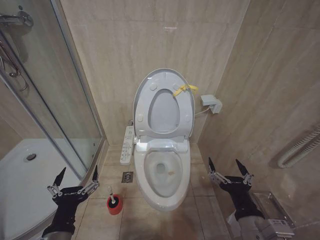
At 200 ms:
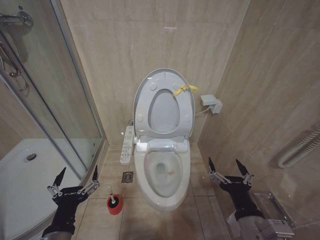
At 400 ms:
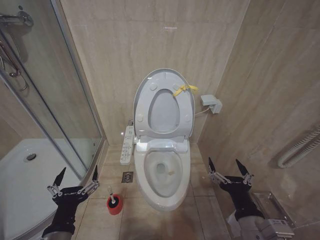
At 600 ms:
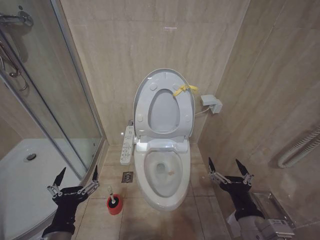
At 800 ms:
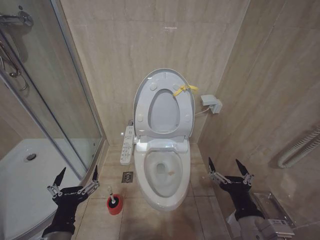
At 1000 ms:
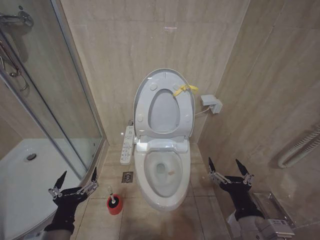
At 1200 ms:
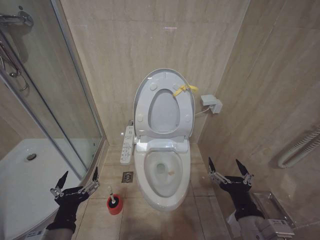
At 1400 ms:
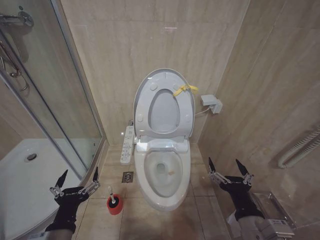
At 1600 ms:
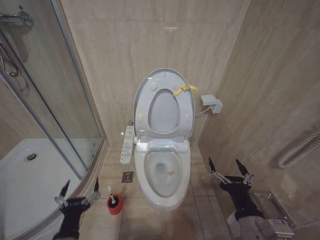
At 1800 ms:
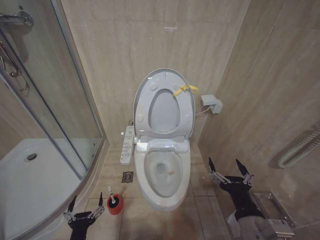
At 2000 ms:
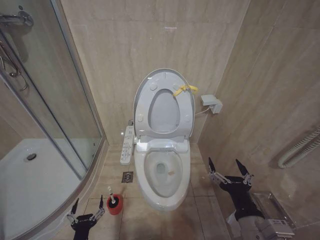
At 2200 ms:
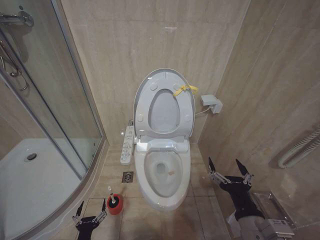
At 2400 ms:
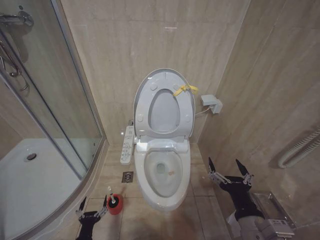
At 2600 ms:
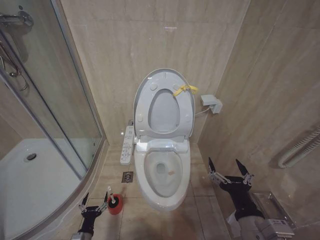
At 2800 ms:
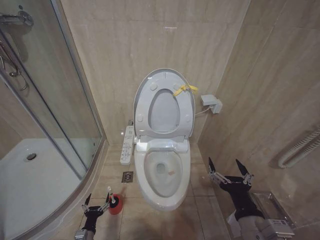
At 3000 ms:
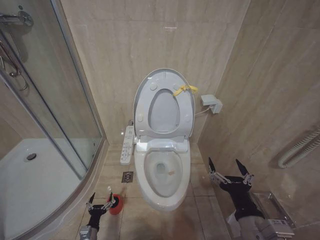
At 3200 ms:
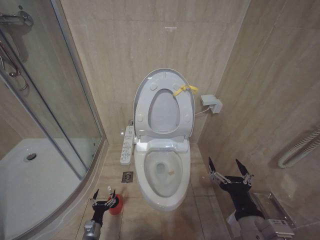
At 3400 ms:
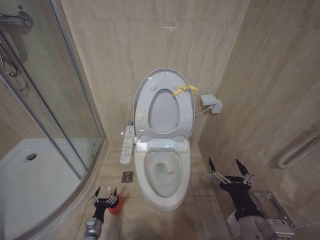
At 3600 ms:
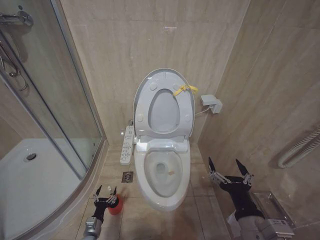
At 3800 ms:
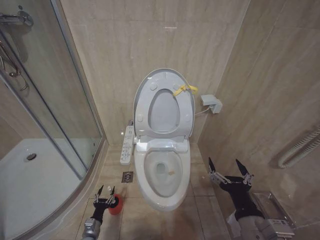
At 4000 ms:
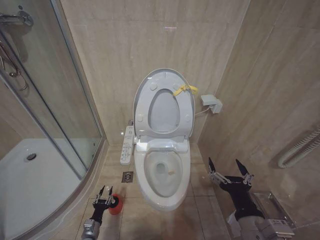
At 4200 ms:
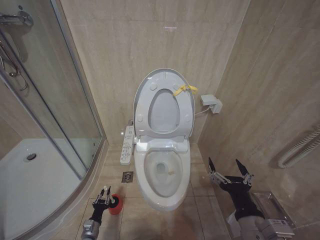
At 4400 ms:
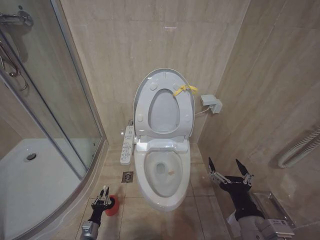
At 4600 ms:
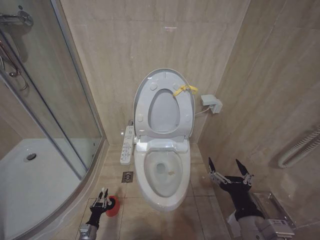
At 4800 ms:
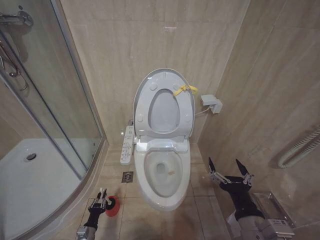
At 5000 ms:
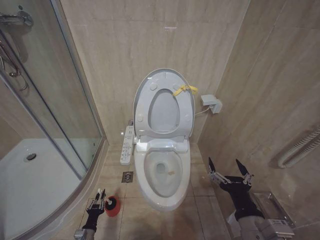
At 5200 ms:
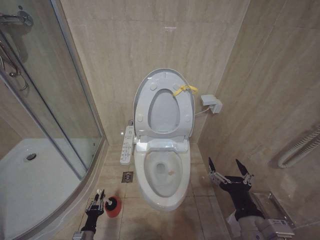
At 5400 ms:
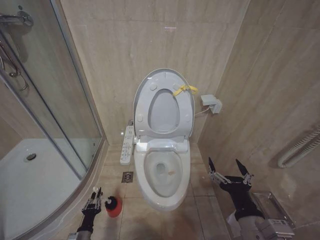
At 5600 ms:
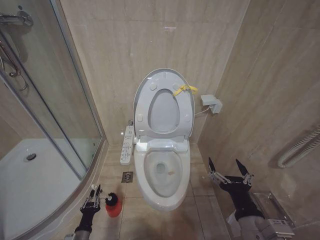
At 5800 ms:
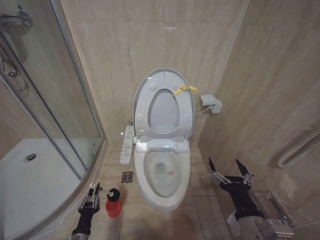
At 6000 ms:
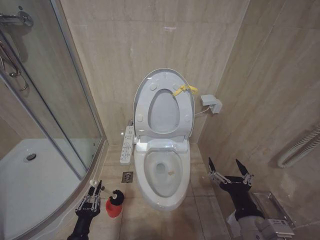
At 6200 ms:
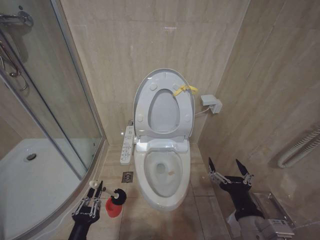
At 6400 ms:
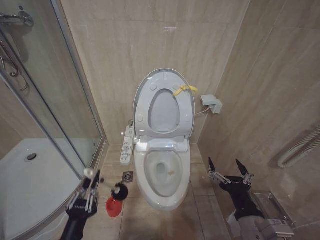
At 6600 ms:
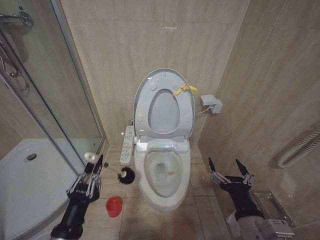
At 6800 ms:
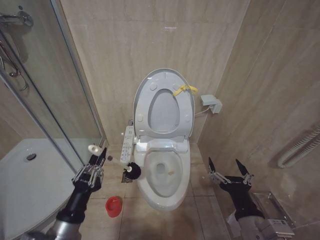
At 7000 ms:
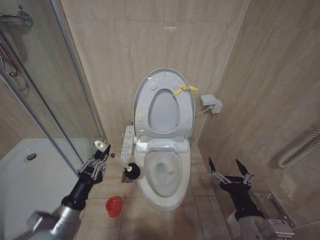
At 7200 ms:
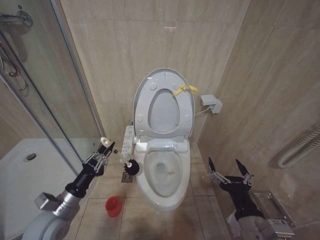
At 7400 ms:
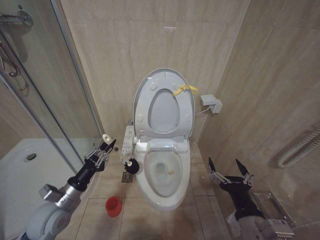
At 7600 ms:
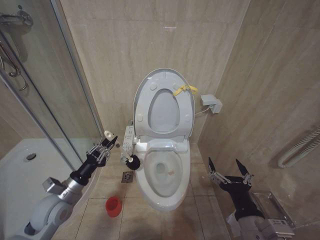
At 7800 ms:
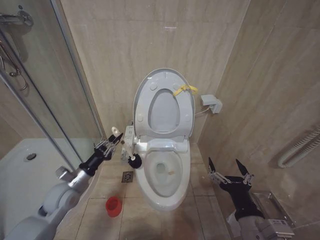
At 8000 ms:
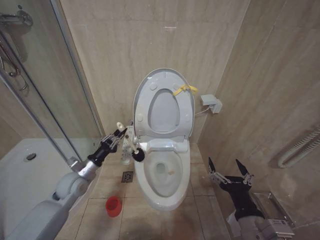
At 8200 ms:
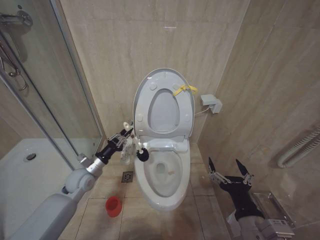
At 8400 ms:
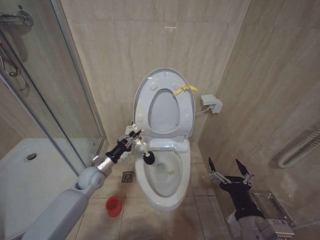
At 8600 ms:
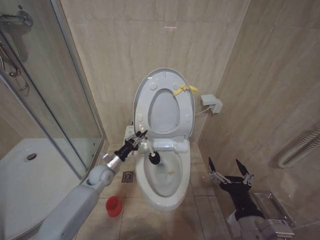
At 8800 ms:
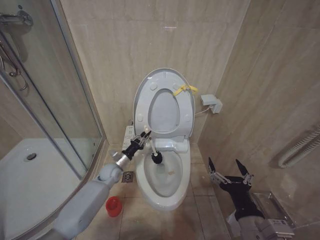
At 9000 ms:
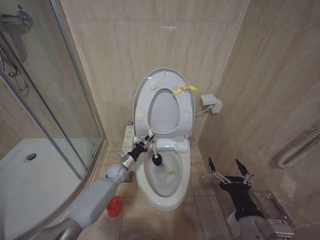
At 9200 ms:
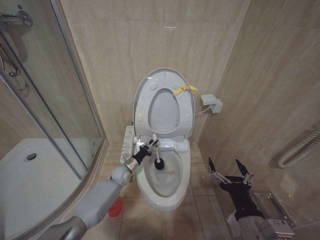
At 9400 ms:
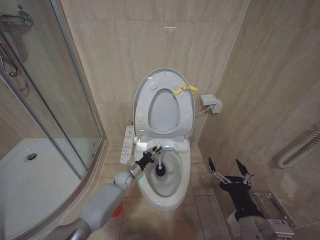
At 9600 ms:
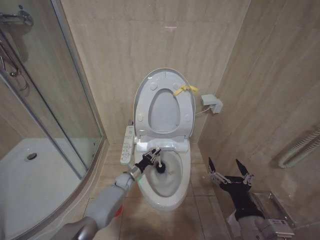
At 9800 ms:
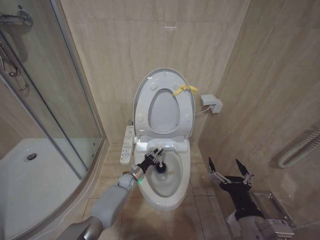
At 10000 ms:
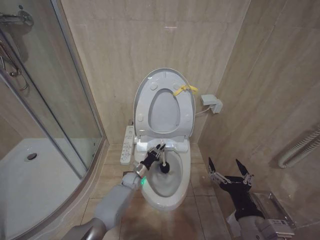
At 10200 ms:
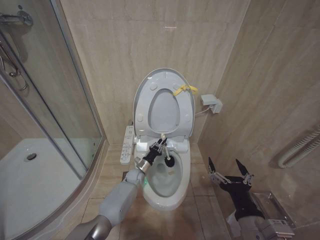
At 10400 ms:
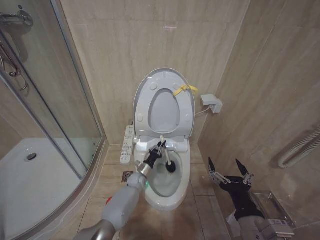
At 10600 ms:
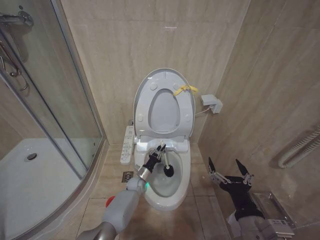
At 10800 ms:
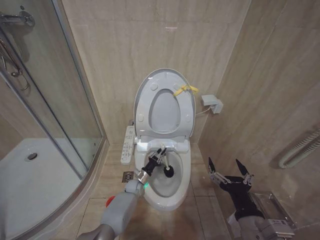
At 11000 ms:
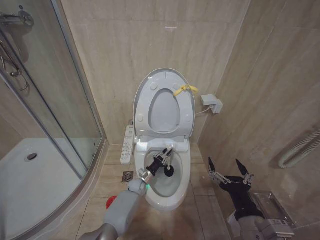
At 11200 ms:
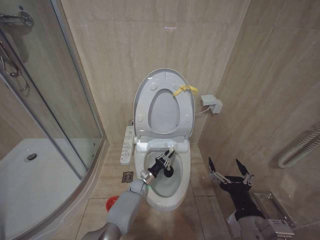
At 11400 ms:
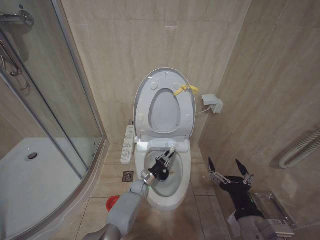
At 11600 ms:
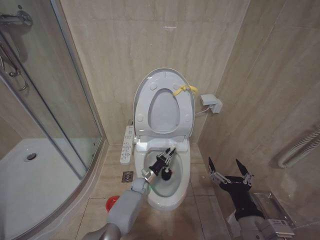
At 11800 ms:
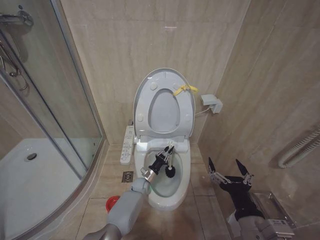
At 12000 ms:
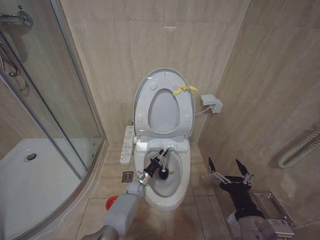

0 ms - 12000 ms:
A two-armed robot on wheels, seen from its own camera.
Task of the whole recording: Open the toilet lid, clean the toilet bowl with a toilet brush, close the toilet lid, and flush.
0 ms - 1600 ms: The grippers stay close to where they were, moving slightly.
1600 ms - 3000 ms: The left gripper heads downward, covering approximately 30 cm.
3000 ms - 4400 ms: The left gripper closes its fingers.
4400 ms - 6000 ms: The left gripper moves upward and backward, some 20 cm.
6000 ms - 7600 ms: The left gripper shifts some 20 cm upward and forward.
7600 ms - 9000 ms: The left gripper heads forward, to the right and downward, covering approximately 25 cm.
9000 ms - 10400 ms: The left gripper heads to the right and downward, covering some 15 cm.
10400 ms - 12000 ms: The left gripper shifts by roughly 5 cm.

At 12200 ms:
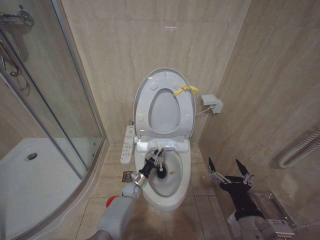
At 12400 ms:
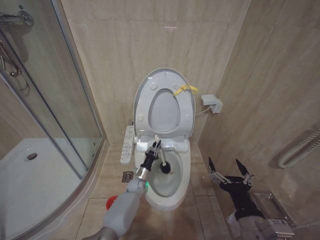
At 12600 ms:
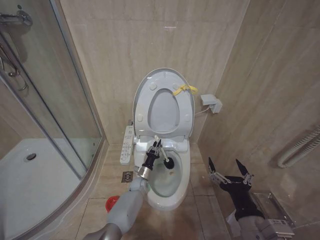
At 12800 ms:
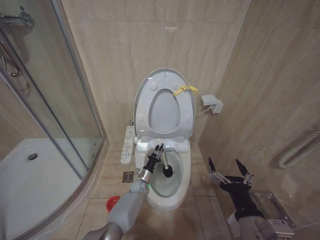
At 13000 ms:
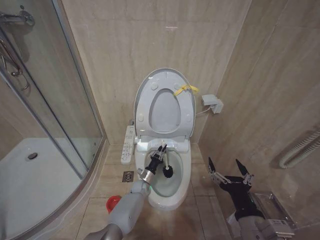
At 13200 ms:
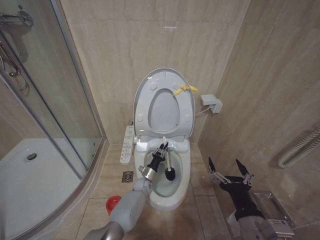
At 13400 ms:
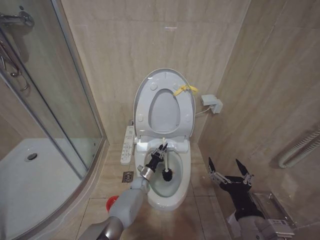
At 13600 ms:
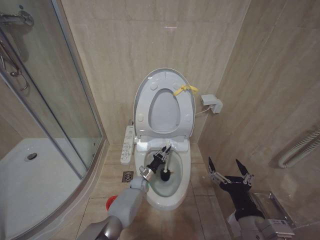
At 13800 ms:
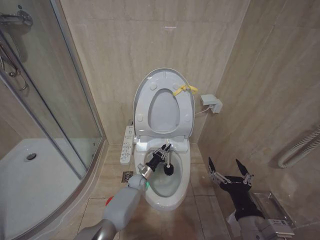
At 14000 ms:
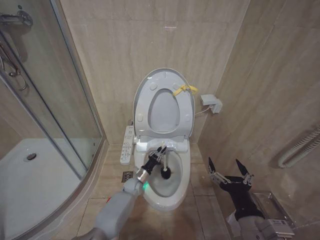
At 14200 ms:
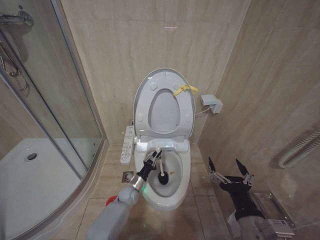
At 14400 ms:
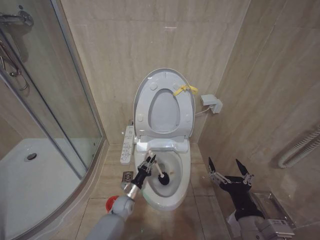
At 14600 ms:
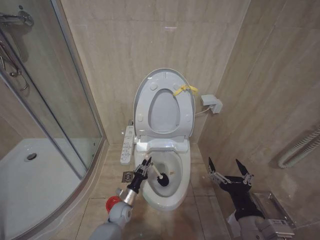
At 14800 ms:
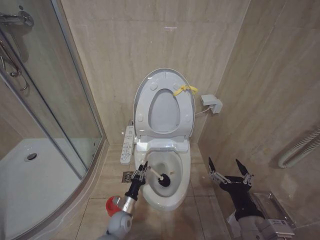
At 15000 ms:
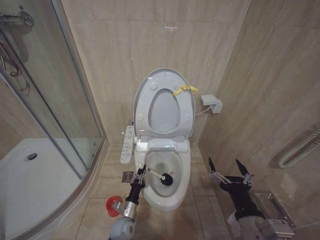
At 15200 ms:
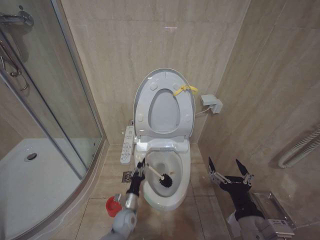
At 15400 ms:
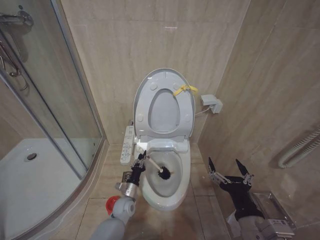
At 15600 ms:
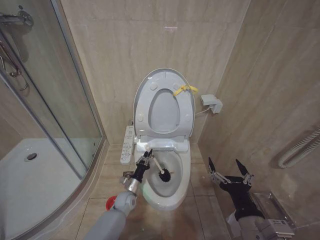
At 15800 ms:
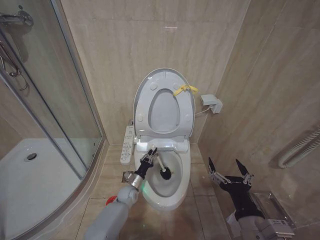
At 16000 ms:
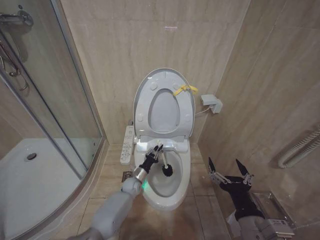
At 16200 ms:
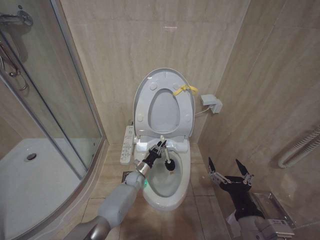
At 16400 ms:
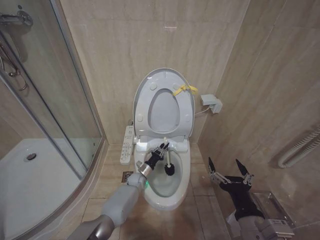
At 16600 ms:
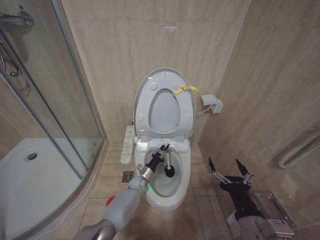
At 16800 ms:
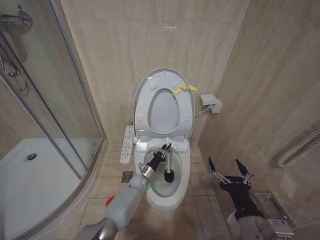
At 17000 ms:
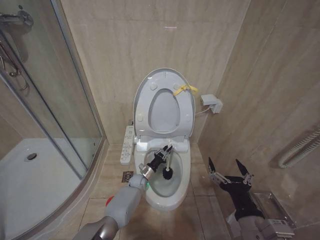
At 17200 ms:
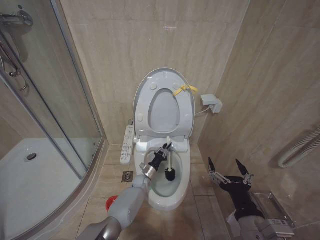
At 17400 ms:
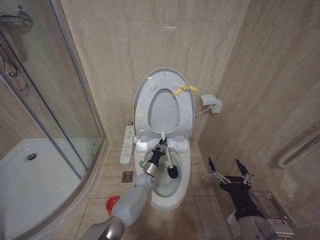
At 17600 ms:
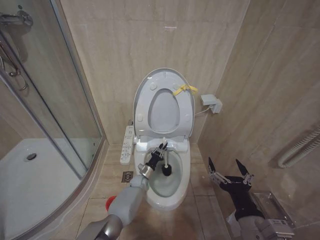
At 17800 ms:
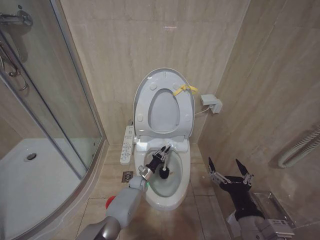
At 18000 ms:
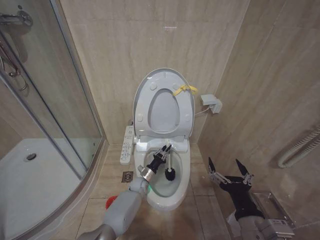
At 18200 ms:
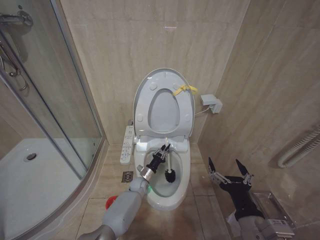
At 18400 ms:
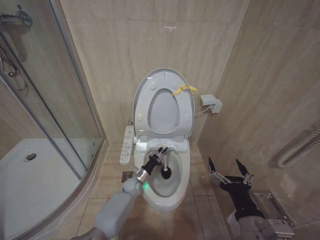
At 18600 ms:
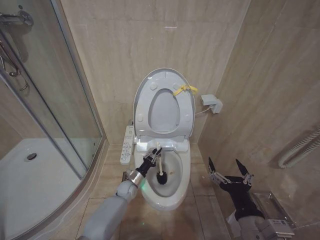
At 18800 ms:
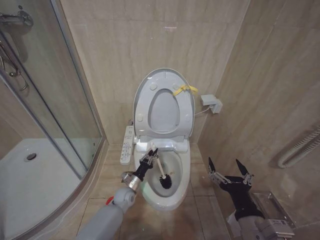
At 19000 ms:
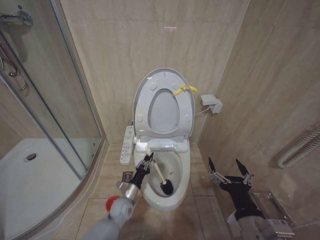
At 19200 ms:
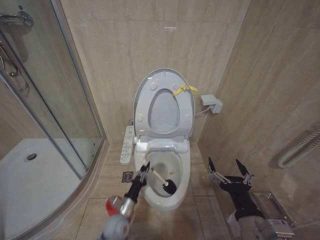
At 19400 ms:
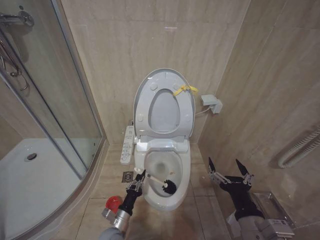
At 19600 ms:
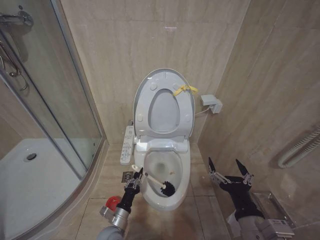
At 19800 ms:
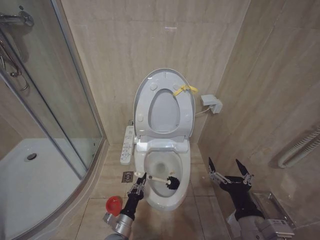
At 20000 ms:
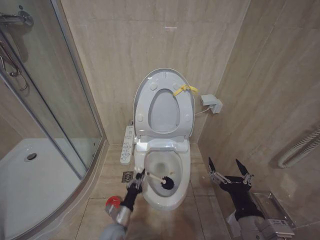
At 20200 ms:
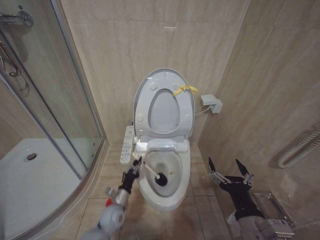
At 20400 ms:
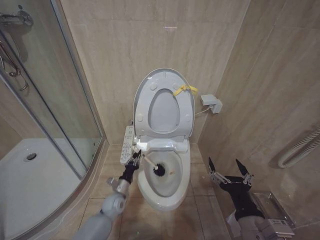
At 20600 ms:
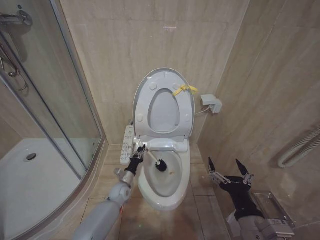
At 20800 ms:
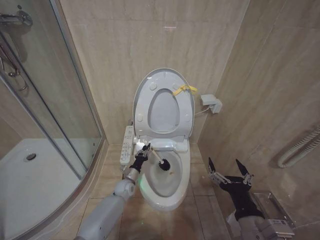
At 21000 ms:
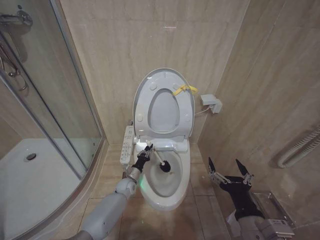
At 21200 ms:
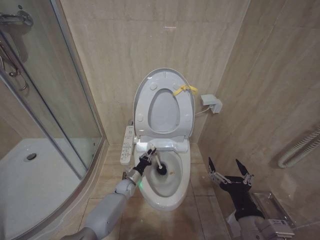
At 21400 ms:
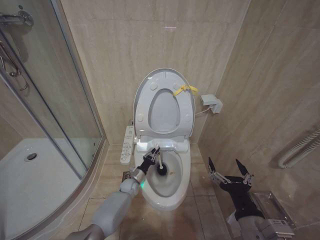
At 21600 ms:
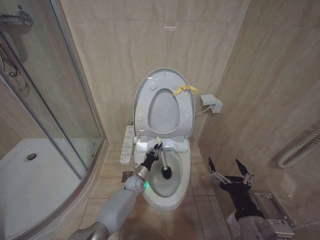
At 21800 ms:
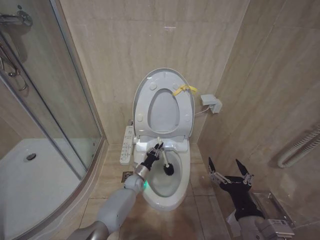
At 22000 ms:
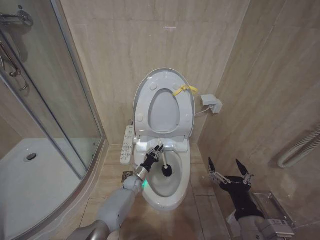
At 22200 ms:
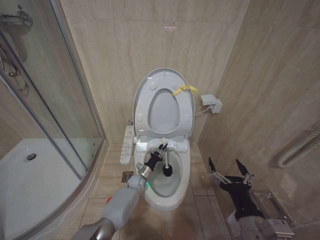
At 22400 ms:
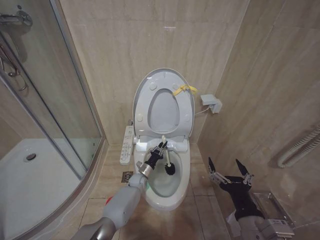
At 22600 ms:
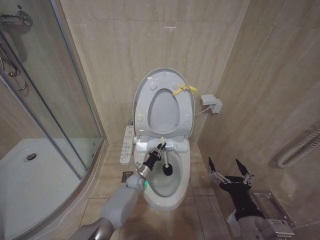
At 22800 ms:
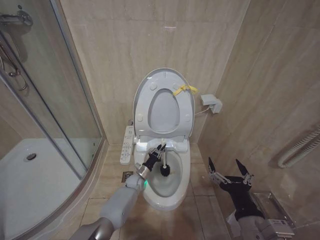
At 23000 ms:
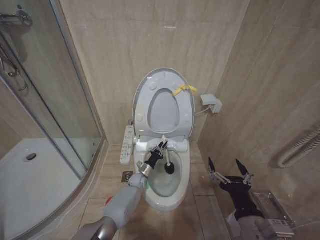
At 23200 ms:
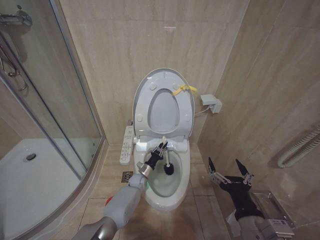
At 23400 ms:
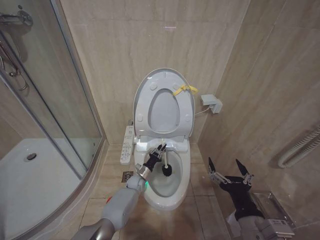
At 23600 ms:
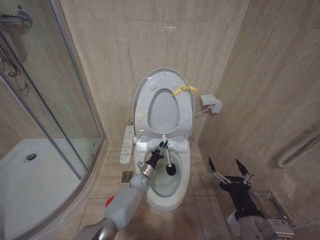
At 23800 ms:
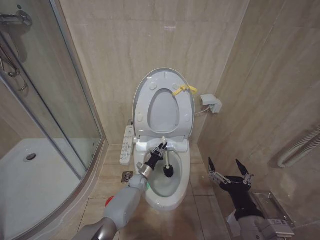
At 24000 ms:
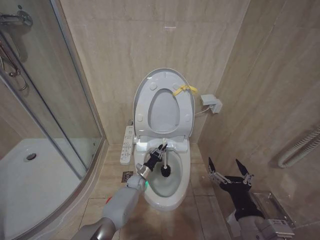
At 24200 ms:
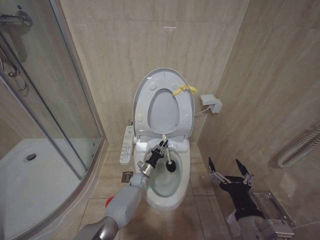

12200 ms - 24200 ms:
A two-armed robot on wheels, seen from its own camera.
Task of the whole recording: Open the toilet lid, clean the toilet bowl with a toilet brush, close the toilet lid, and flush.
12200 ms - 13800 ms: The left gripper shifts by about 5 cm.
13800 ms - 15200 ms: The left gripper shifts about 20 cm backward.
15200 ms - 16600 ms: The left gripper heads forward, covering some 15 cm.
16600 ms - 18200 ms: There are only small adjustments of the grippers.
18200 ms - 19800 ms: The left gripper heads backward, covering some 25 cm.
19800 ms - 21200 ms: The left gripper heads forward, covering some 25 cm.
21200 ms - 22600 ms: The left gripper heads to the right, covering some 5 cm.
22600 ms - 24200 ms: There are only small adjustments of the grippers.
